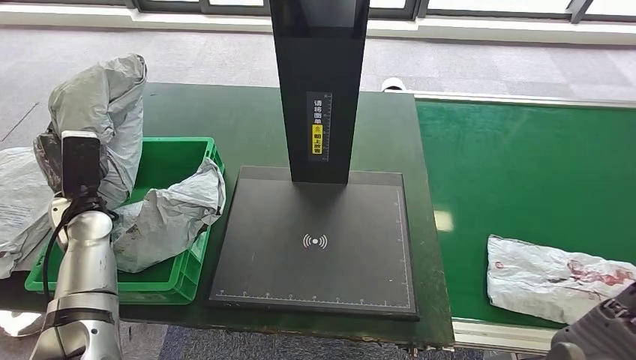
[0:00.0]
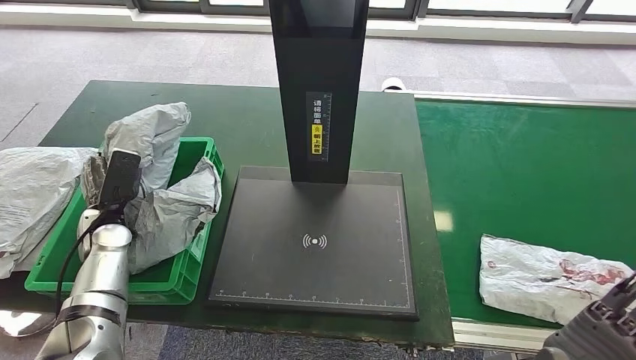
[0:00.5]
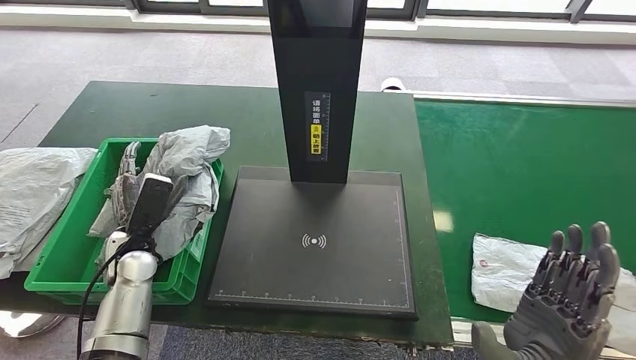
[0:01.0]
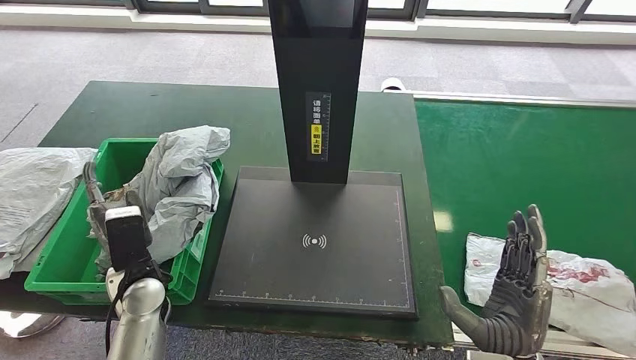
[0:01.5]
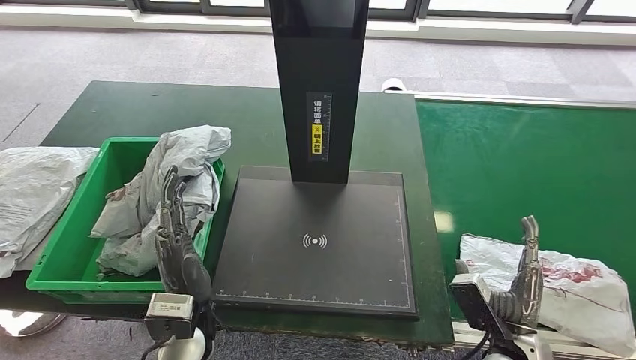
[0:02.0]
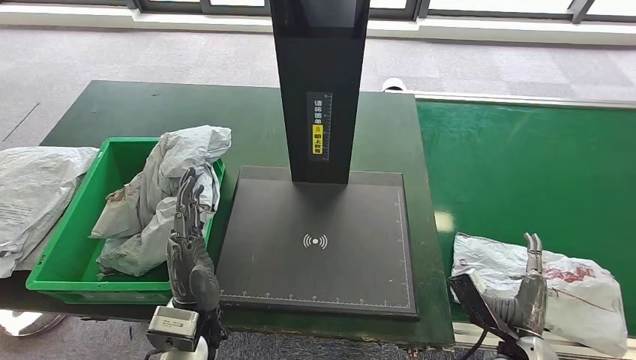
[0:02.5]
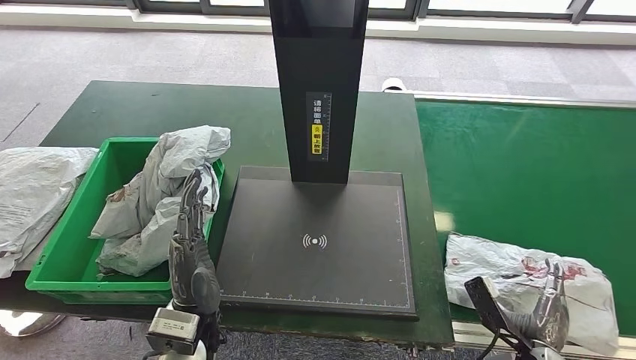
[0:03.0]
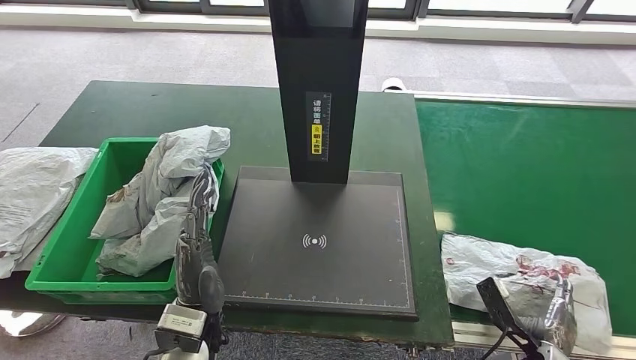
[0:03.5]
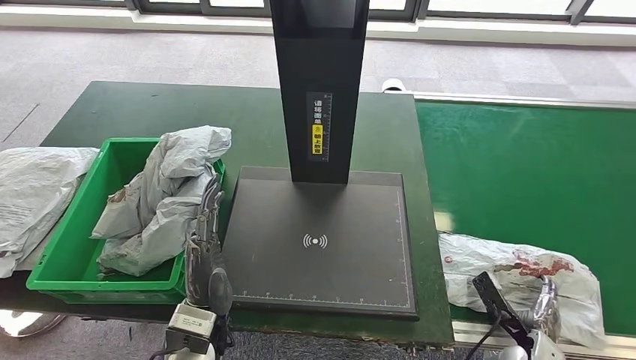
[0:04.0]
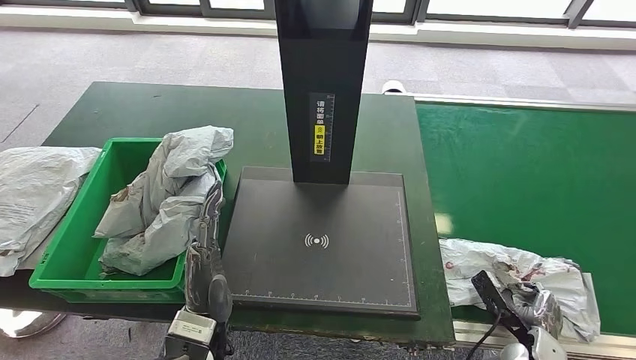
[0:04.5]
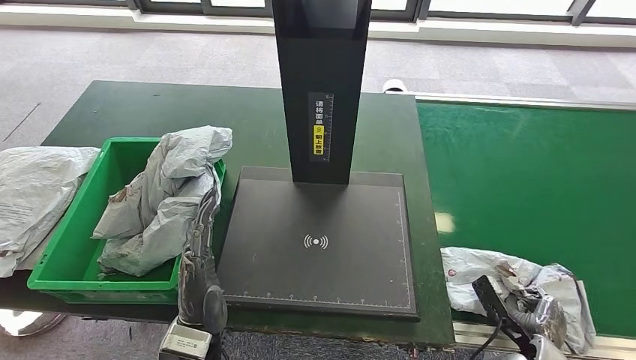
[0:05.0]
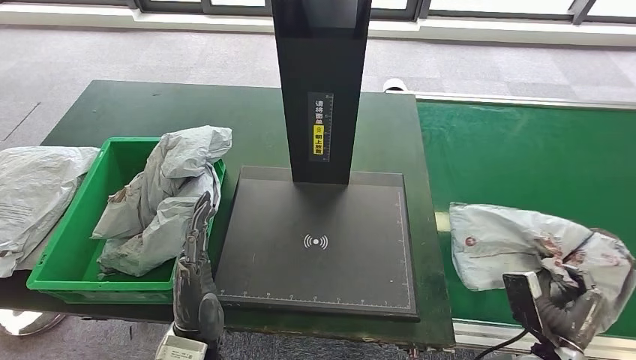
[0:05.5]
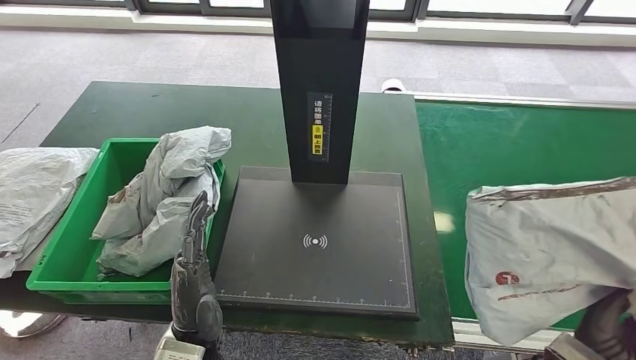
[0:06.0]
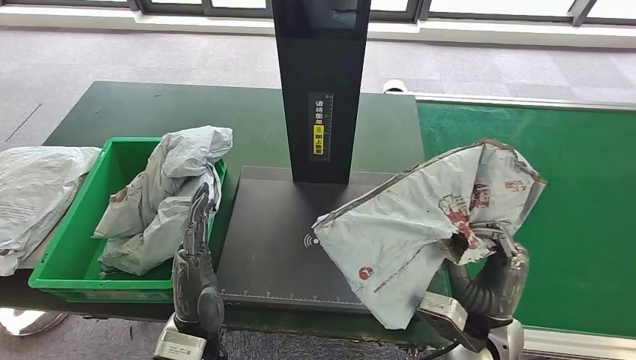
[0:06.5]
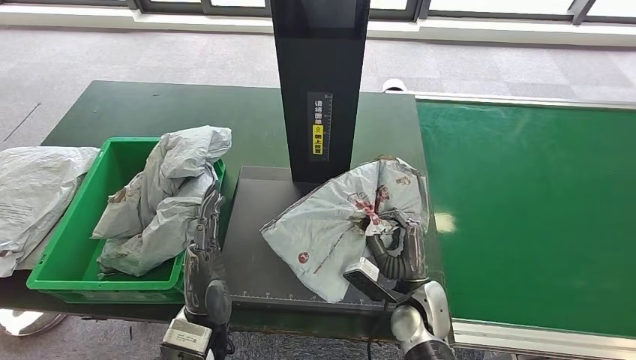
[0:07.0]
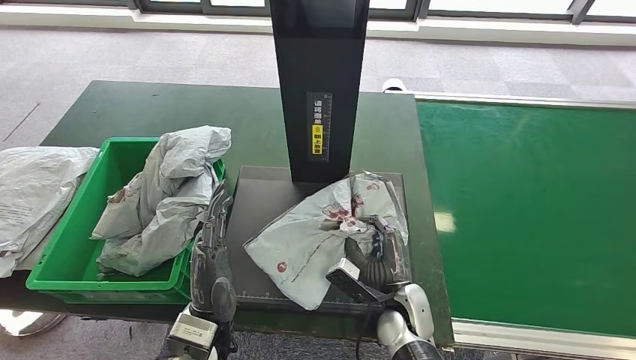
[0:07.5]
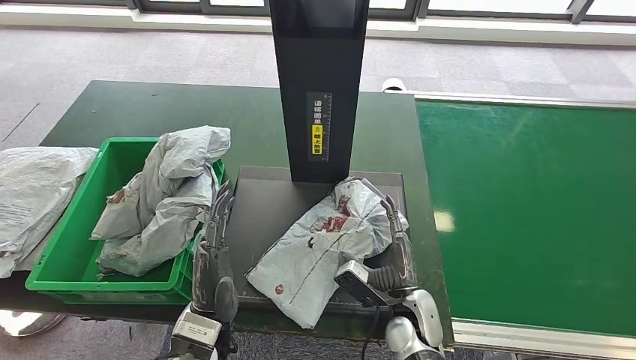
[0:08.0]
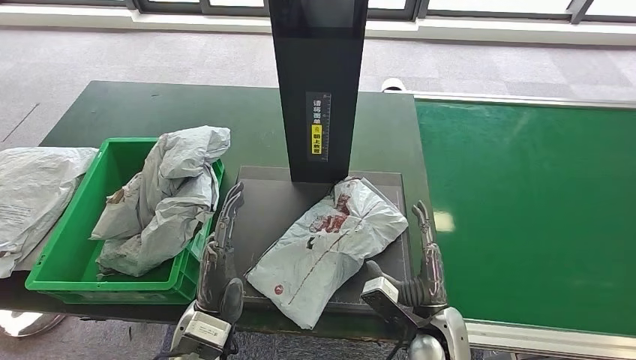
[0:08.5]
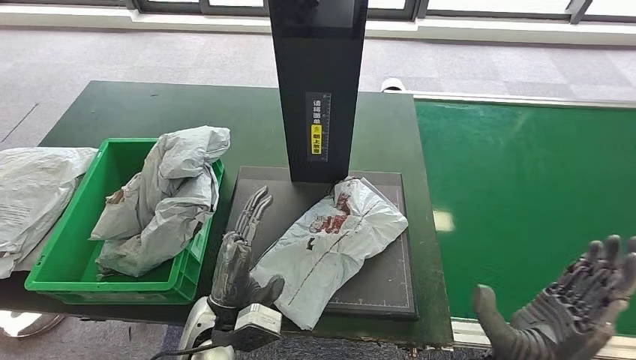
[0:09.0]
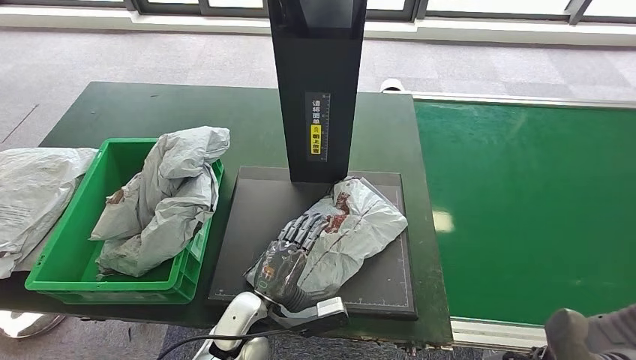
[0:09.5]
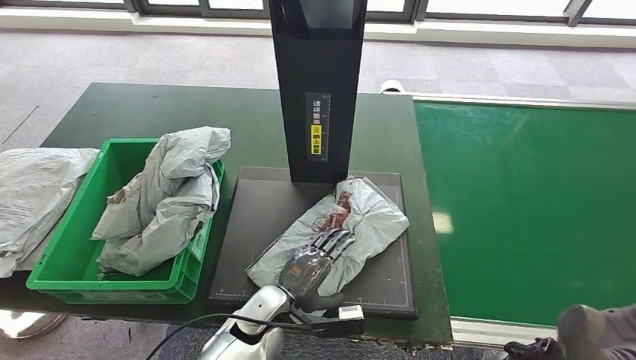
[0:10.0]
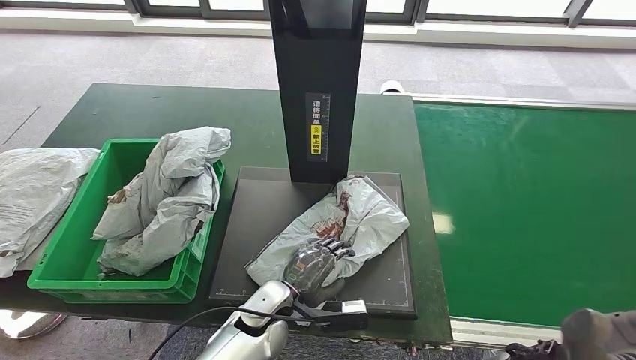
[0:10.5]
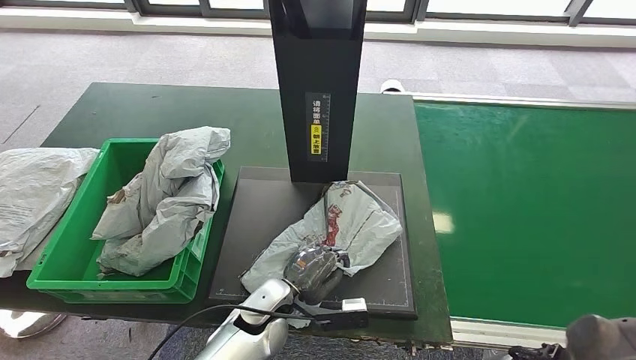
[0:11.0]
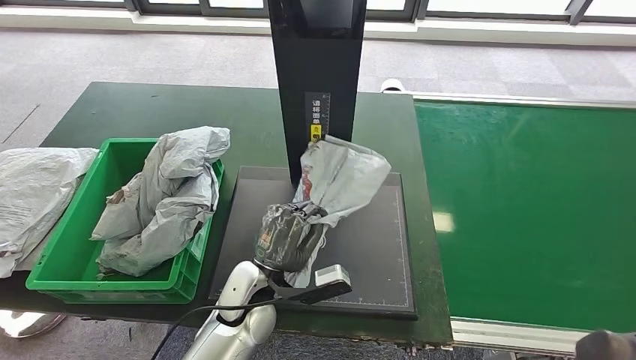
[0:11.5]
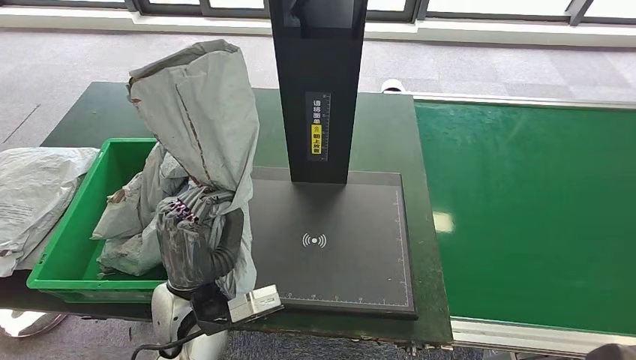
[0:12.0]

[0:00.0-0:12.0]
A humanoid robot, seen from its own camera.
Step, 0:00.0 to 0:01.5: Place the parcel into the delivery box.
Step, 0:02.0 to 0:06.5: Pick up the parcel from the conveyor belt.
Step, 0:07.0 to 0:10.0: Place the parcel onto the inbound machine.
Step, 0:10.5 to 0:11.5: Pick up the parcel from the inbound machine.
0:02.0 to 0:04.0: The right hand is displaced downward and to the right by about 15 cm.
0:04.0 to 0:06.0: The right hand moves upward, some 20 cm.
0:08.0 to 0:10.0: The right hand goes roughly 20 cm upward and to the right. The left hand shifts some 10 cm downward and to the right.
0:10.0 to 0:12.0: The left hand is displaced upward and to the left by roughly 15 cm.

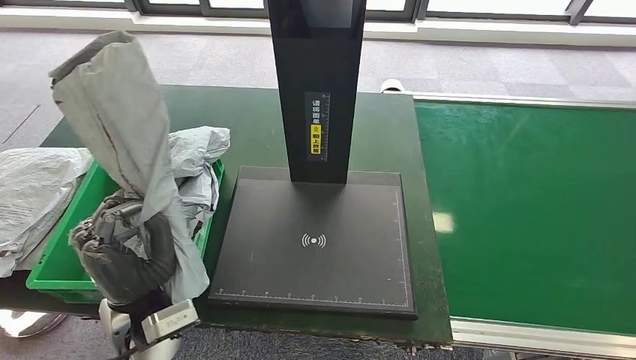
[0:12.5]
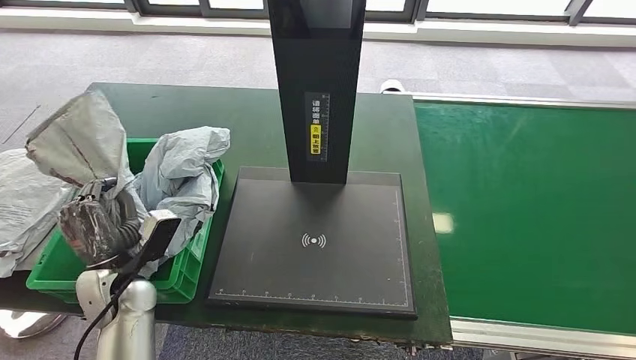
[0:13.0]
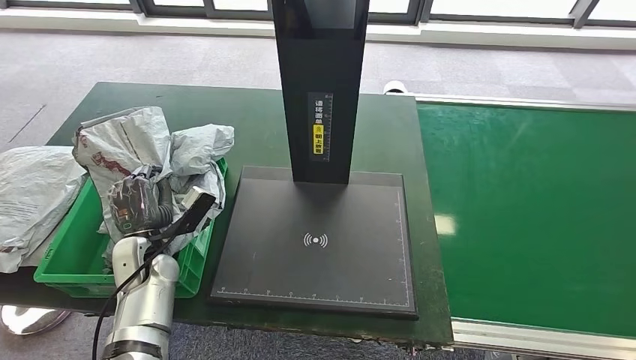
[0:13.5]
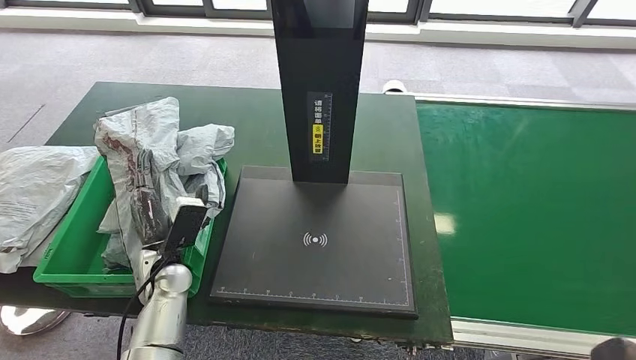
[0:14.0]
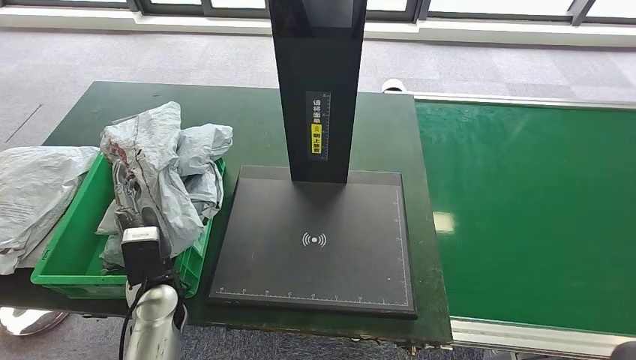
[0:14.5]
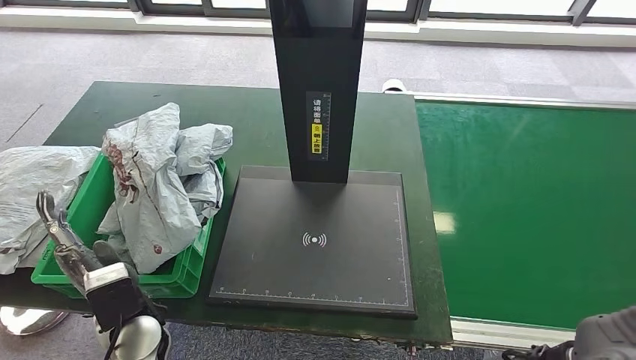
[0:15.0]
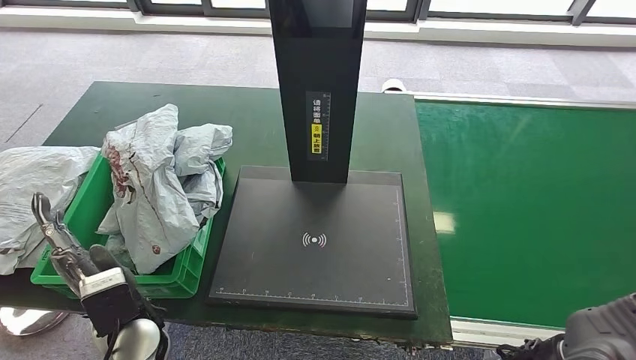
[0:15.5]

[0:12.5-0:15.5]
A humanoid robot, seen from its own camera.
Step, 0:12.5 to 0:15.5: Place the parcel into the delivery box.
0:12.5 to 0:14.0: The left hand travels downward and forward by roughly 10 cm.
0:14.0 to 0:15.5: The left hand travels backward by roughly 10 cm.

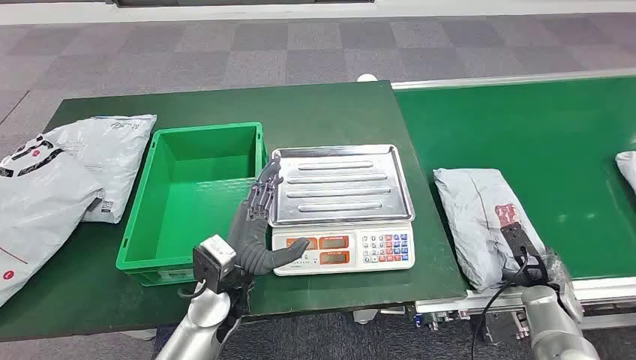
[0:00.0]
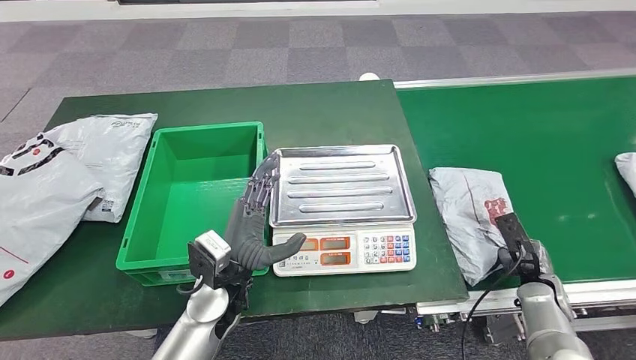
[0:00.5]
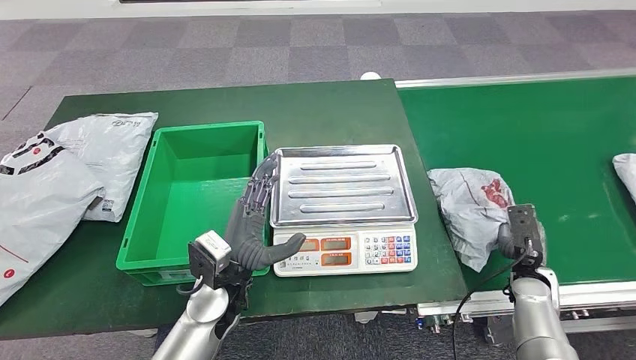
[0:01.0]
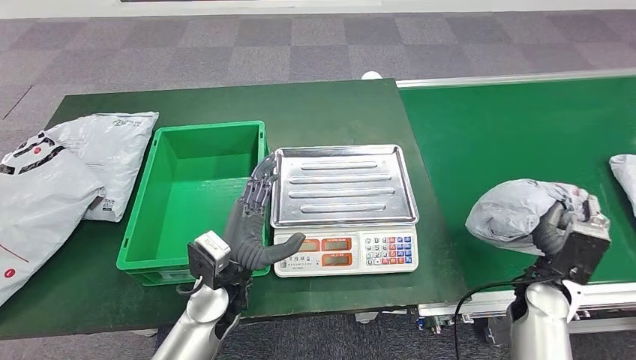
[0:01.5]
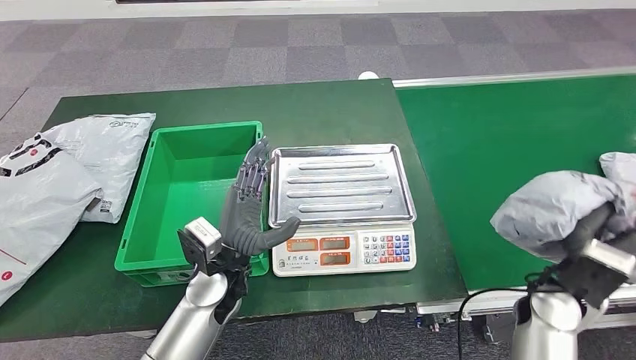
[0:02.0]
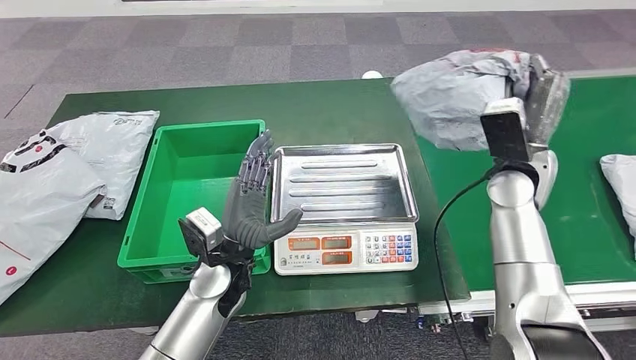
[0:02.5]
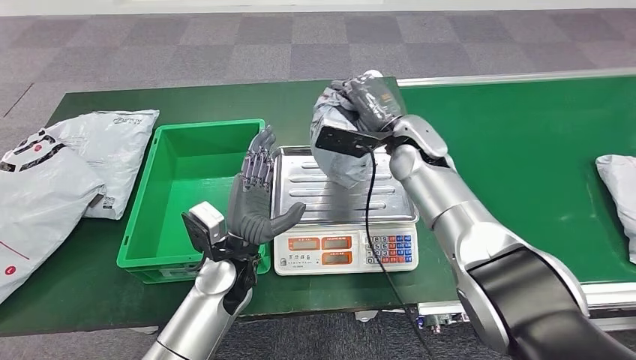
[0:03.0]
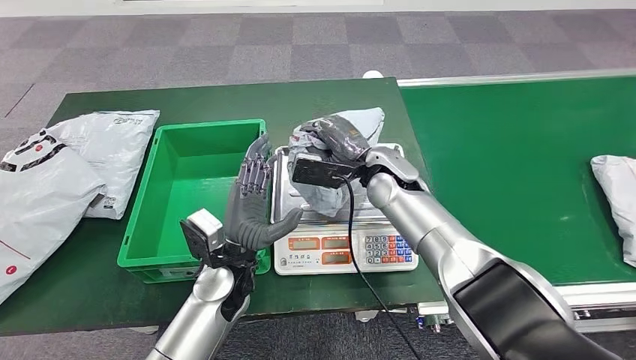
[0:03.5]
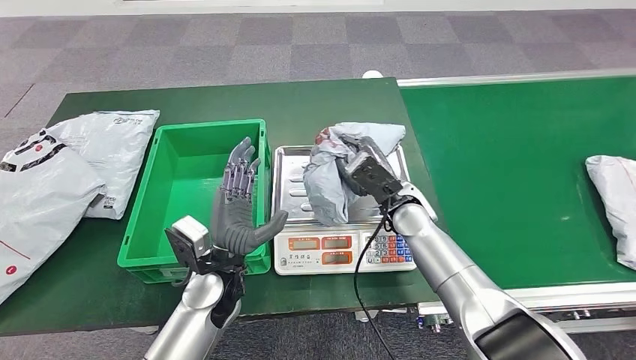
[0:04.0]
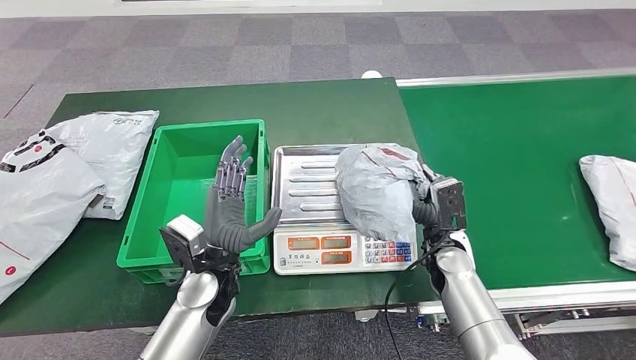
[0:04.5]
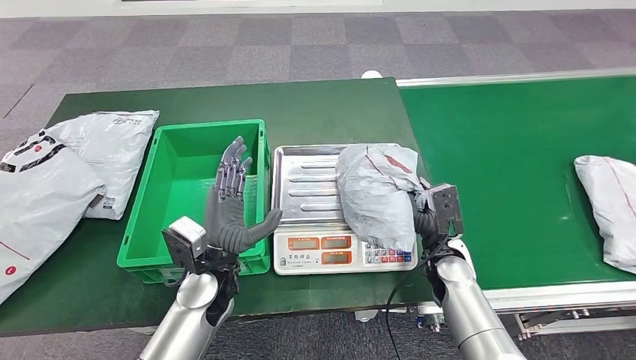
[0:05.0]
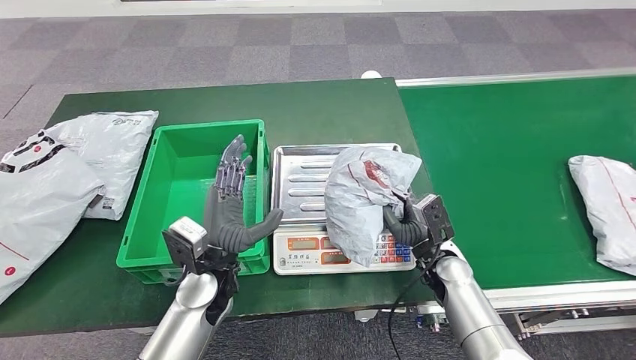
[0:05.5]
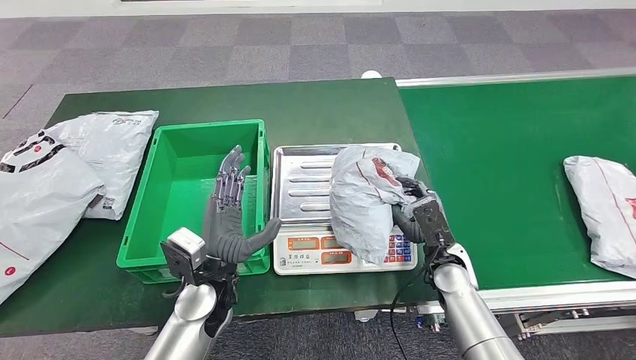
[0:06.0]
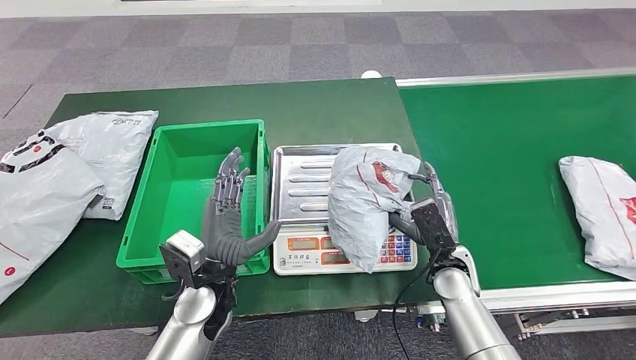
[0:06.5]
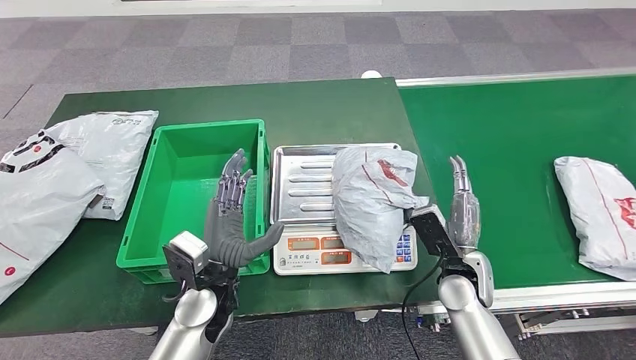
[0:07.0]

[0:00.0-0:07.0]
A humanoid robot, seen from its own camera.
Step, 0:00.0 to 0:01.5: Take the parcel off the conveyor belt.
